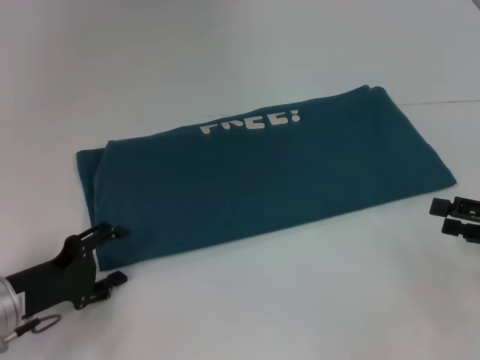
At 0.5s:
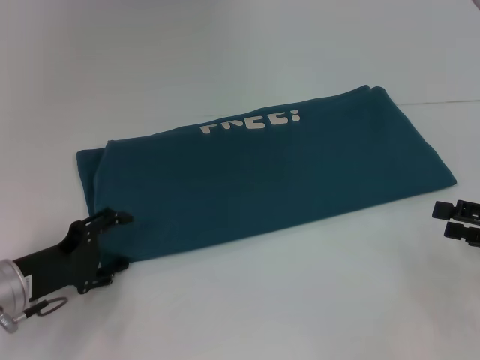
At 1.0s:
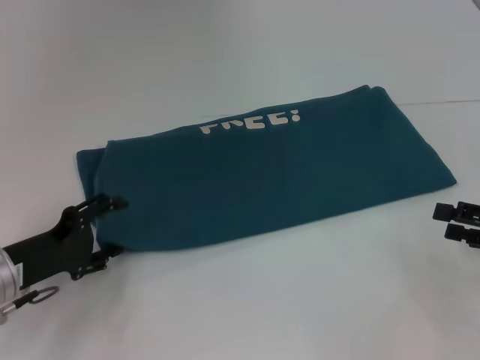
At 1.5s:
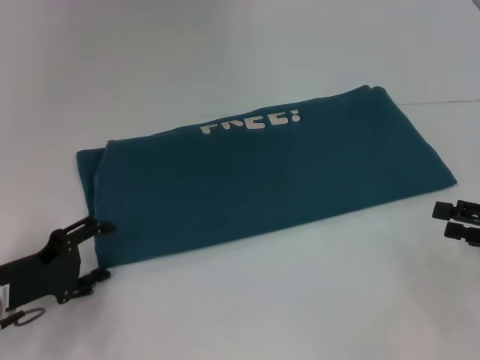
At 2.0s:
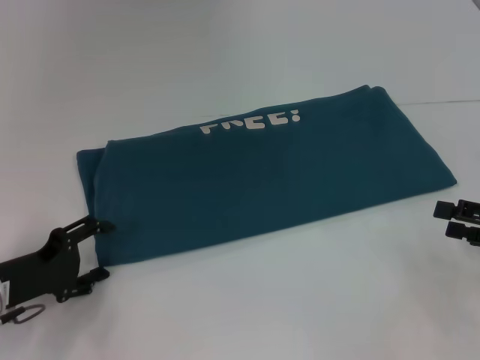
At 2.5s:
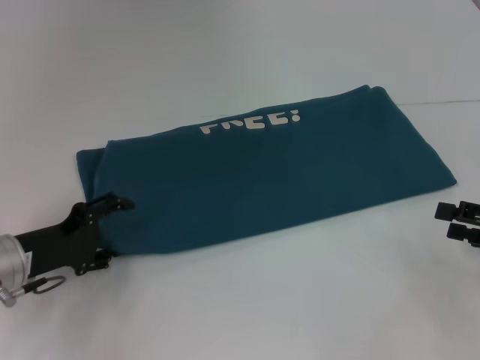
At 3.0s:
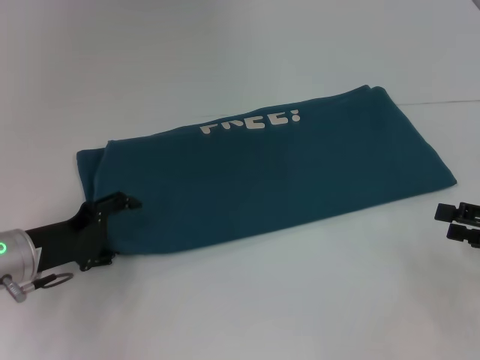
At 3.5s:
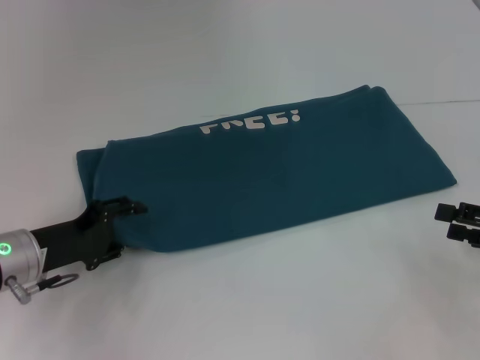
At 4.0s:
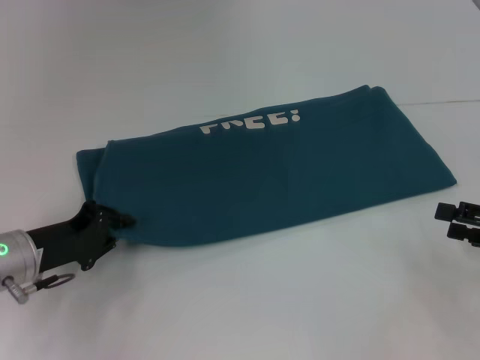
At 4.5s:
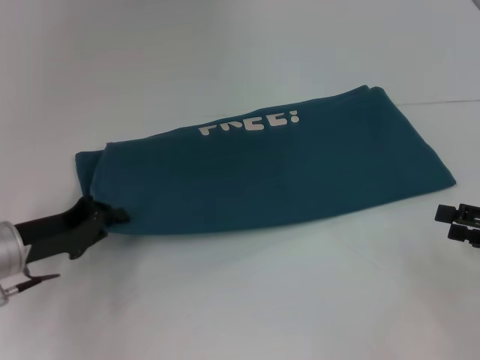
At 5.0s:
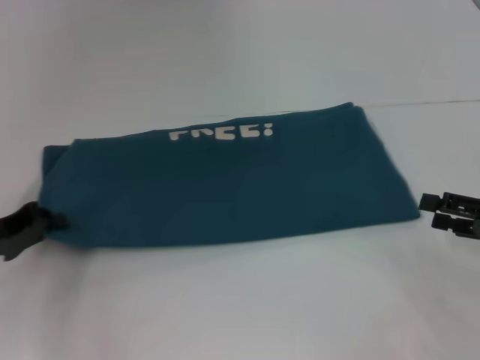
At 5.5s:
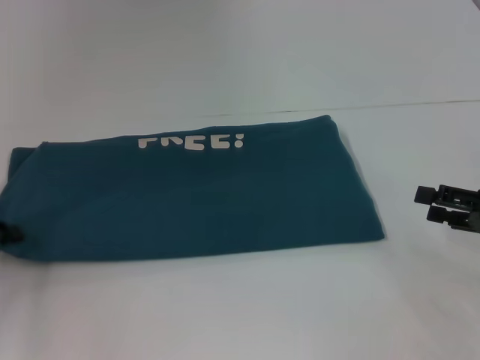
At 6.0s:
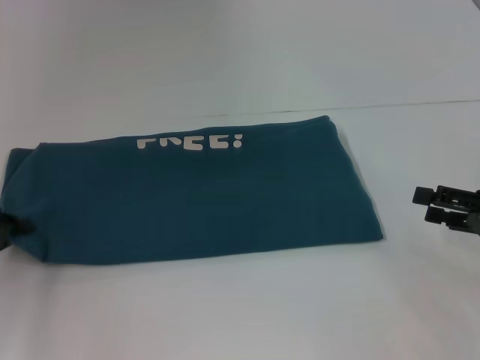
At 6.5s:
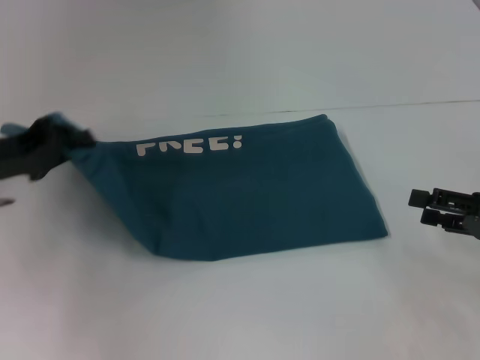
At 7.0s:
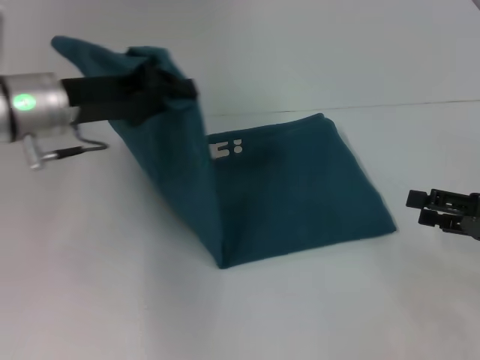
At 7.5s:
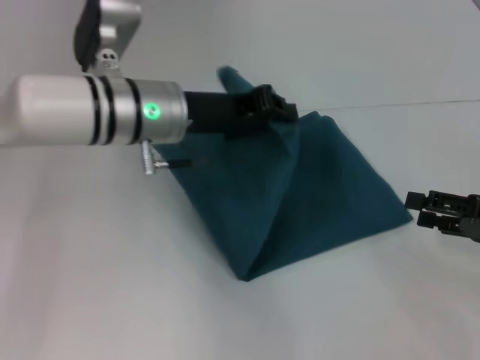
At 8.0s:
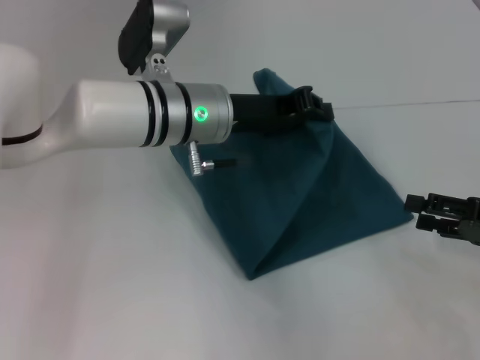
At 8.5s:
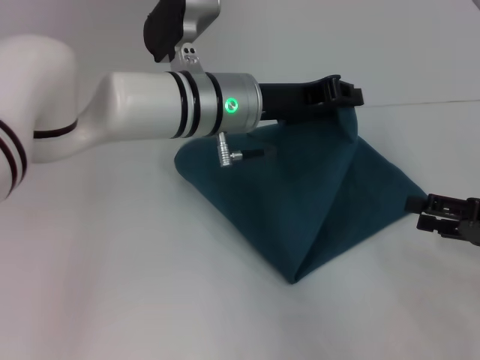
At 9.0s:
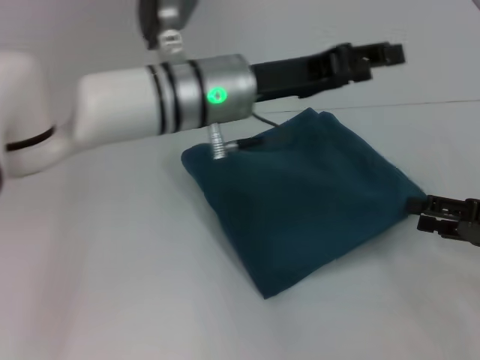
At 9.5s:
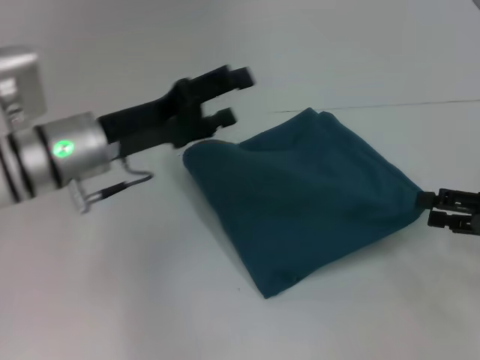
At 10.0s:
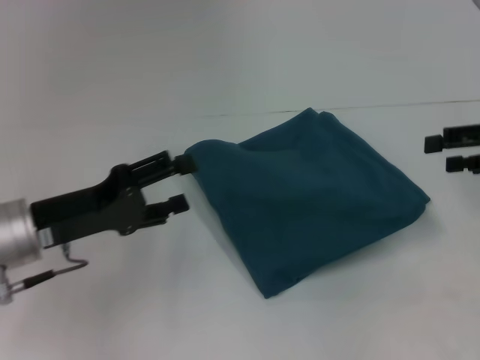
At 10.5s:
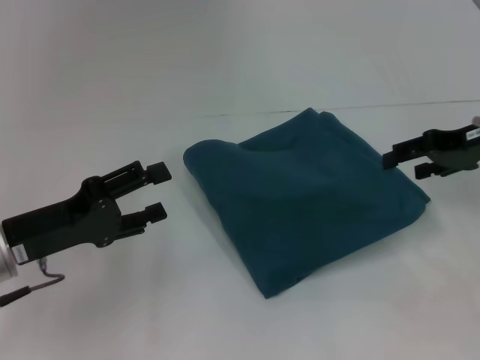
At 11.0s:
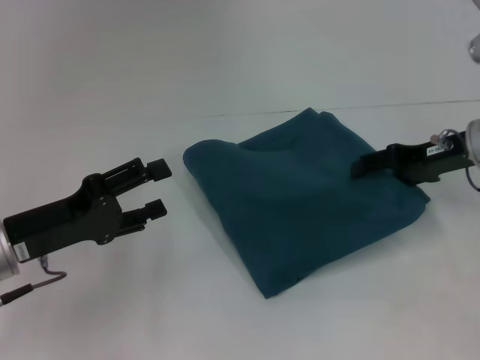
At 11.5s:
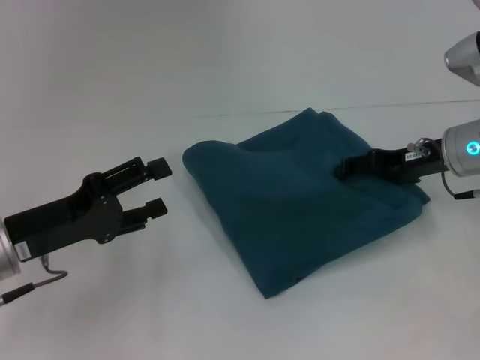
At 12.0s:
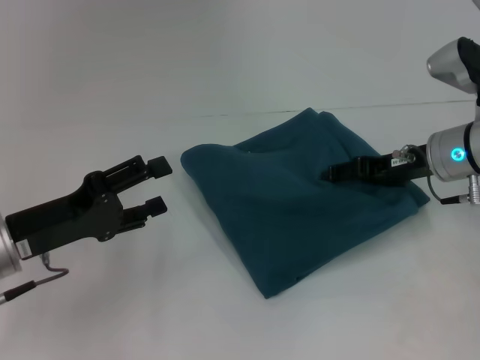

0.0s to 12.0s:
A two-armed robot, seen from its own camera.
Step, 0.0s to 8.5s: Fold the clothes to the left.
0.0s to 2.0s: The grippers stay close to where they were, moving slightly.
2.0s to 4.0s: The left gripper closes its fingers.
4.0s to 6.0s: The left gripper is displaced to the left by about 10 cm.
6.0s to 8.0s: The left gripper moves to the right, approximately 30 cm.
8.0s to 10.0s: The right gripper moves upward and forward, roughly 10 cm. The left gripper goes roughly 20 cm to the left and backward, and opens up.
10.0s to 12.0s: The right gripper heads to the left and downward, covering some 15 cm.

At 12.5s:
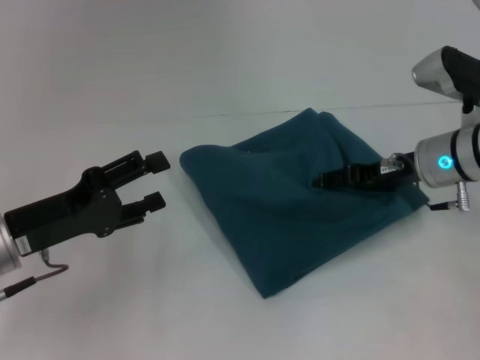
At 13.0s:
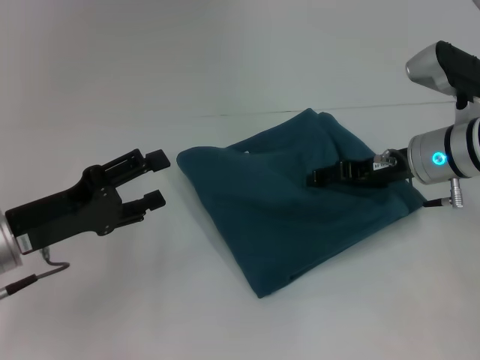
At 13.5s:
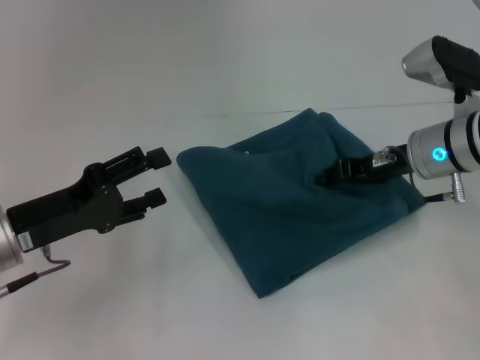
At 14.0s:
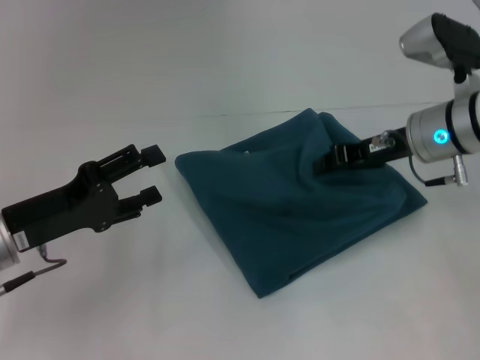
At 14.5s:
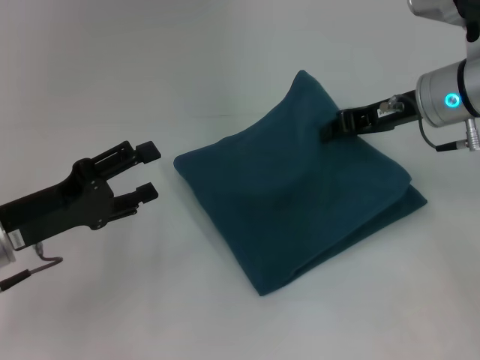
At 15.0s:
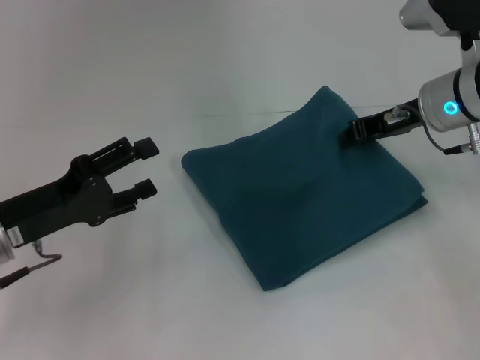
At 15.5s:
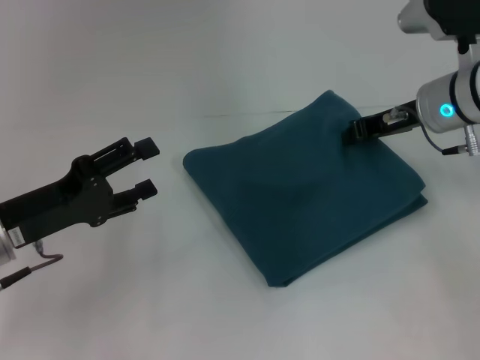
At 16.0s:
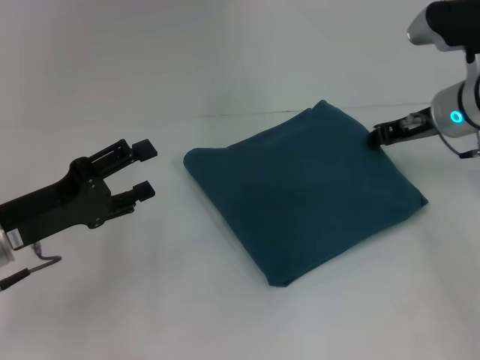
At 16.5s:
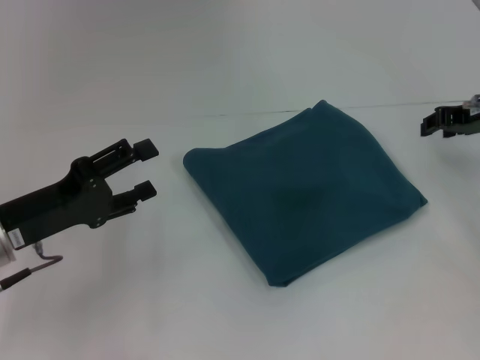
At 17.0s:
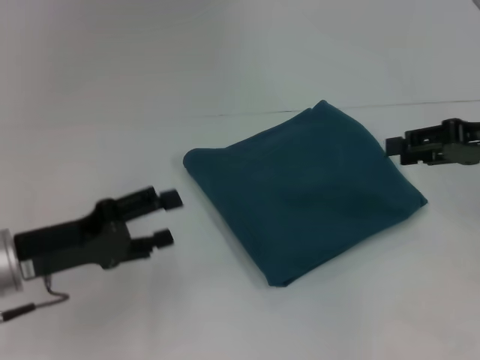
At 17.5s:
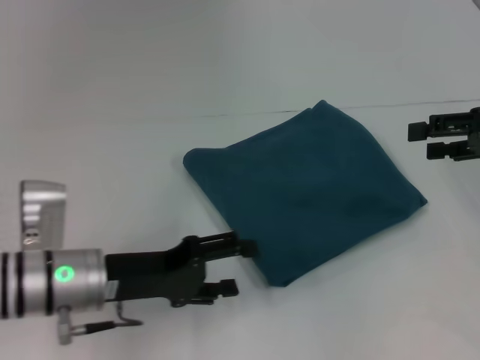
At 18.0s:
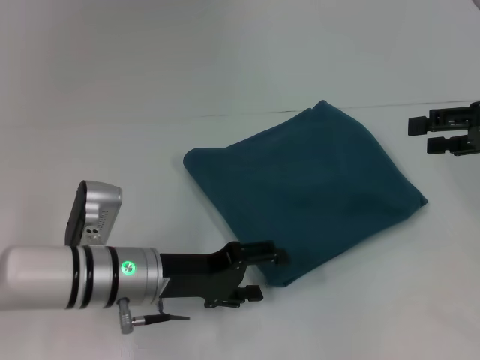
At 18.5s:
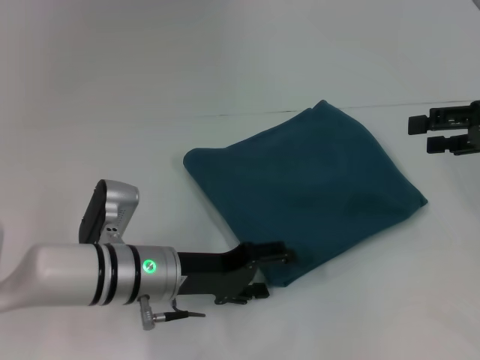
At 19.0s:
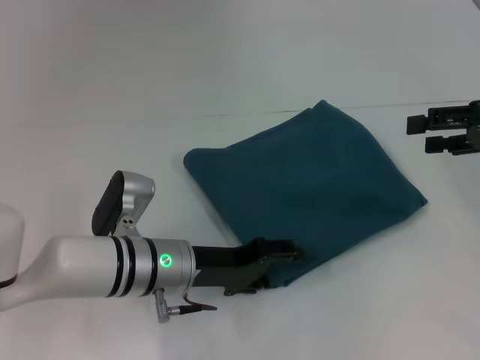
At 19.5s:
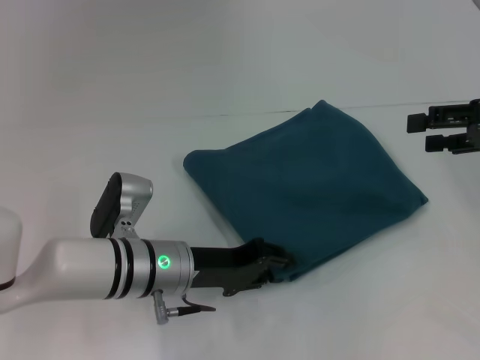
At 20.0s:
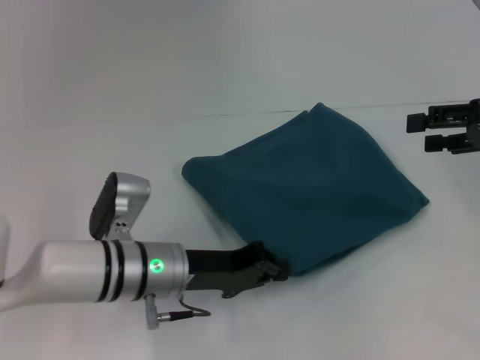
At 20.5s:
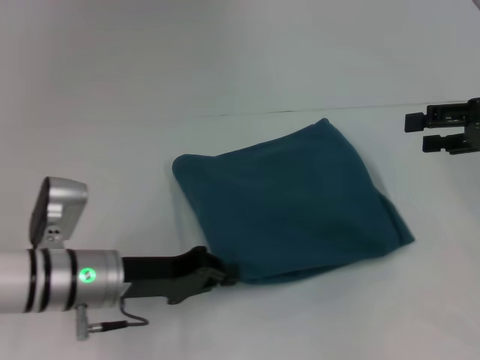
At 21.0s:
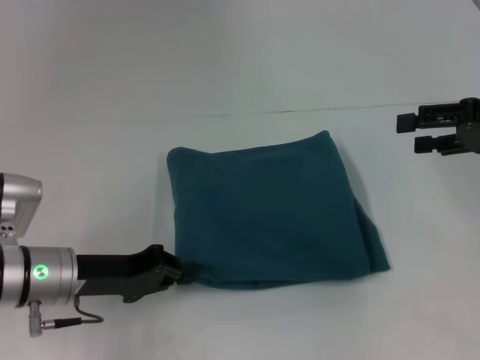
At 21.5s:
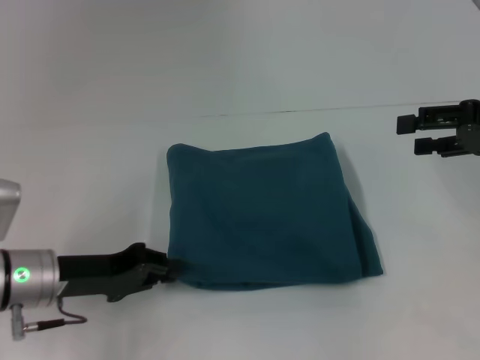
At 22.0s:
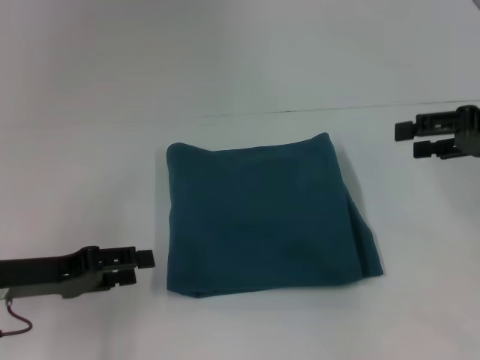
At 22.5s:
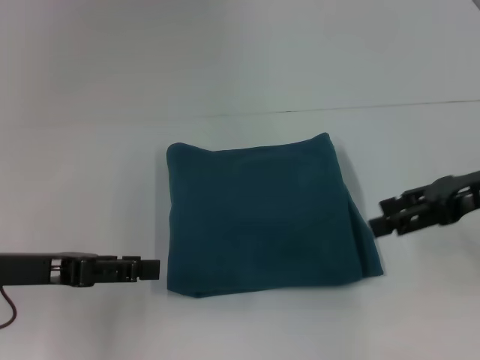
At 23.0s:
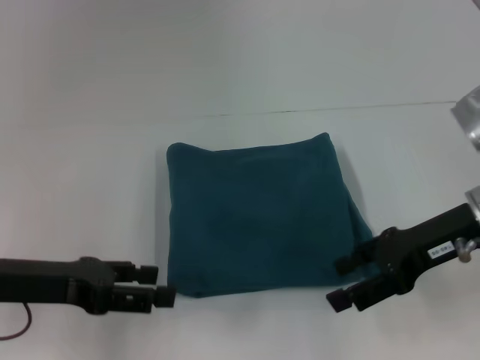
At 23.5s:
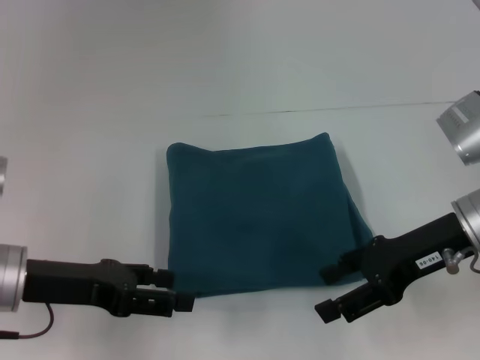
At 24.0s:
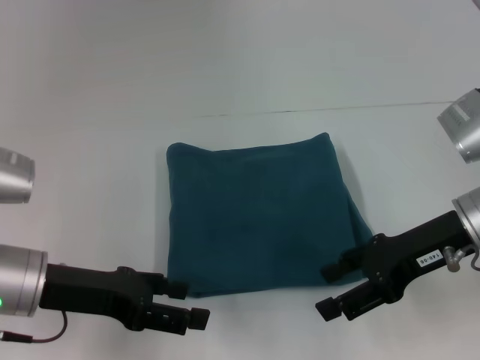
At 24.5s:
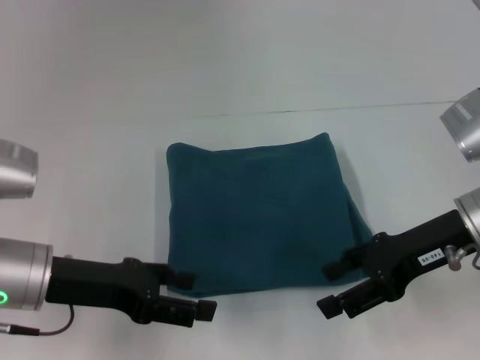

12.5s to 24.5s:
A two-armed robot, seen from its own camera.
12.5s to 14.5s: The right gripper heads upward, covering approximately 5 cm, and closes.
14.5s to 16.5s: The right gripper shifts some 10 cm to the right, and opens its fingers.
16.5s to 18.5s: The left gripper goes approximately 15 cm to the right and downward, while the right gripper travels backward by some 5 cm, and opens its fingers.
18.5s to 20.5s: The left gripper travels to the left by about 5 cm, and closes up.
20.5s to 22.5s: The left gripper moves to the left and upward, about 10 cm, and opens its fingers; the right gripper moves about 5 cm.
22.5s to 24.5s: The left gripper travels to the right by roughly 5 cm; the right gripper travels to the left by some 5 cm.

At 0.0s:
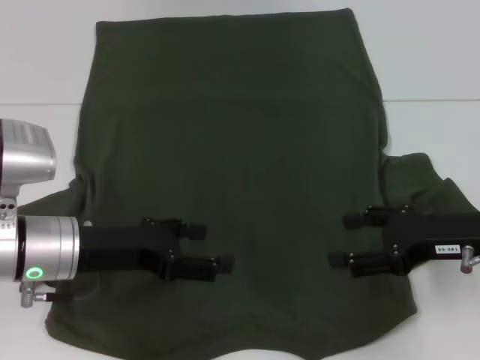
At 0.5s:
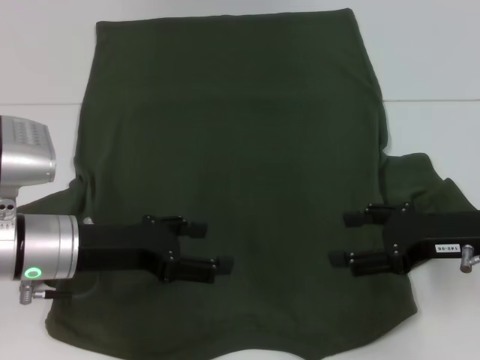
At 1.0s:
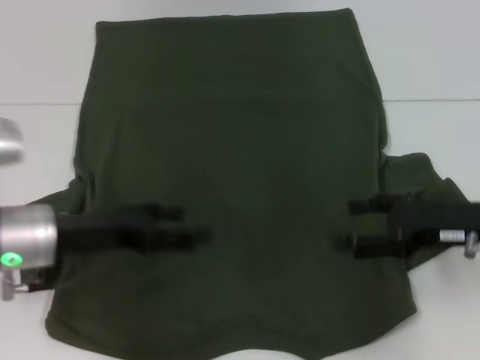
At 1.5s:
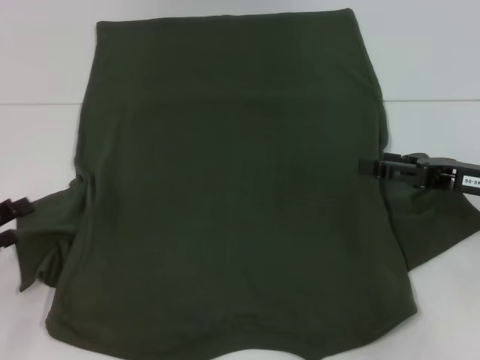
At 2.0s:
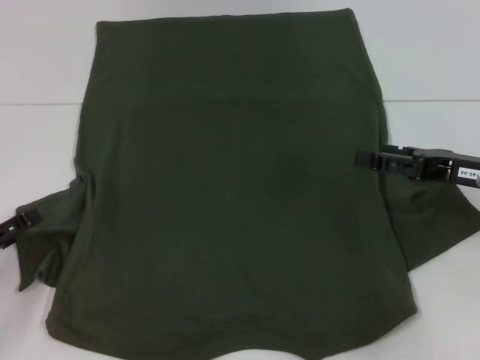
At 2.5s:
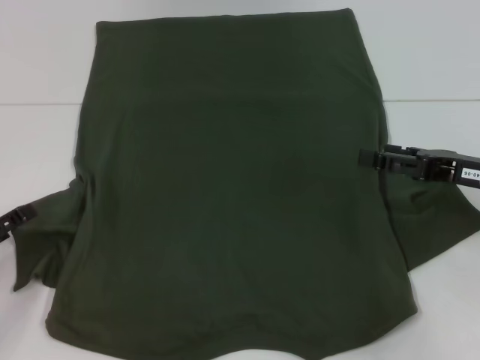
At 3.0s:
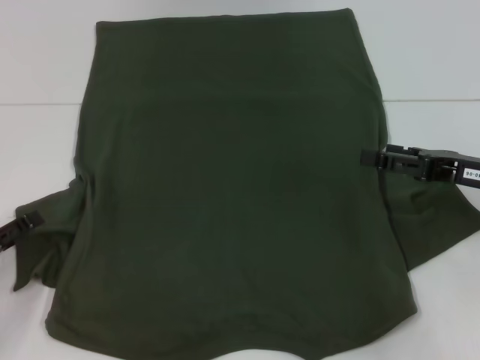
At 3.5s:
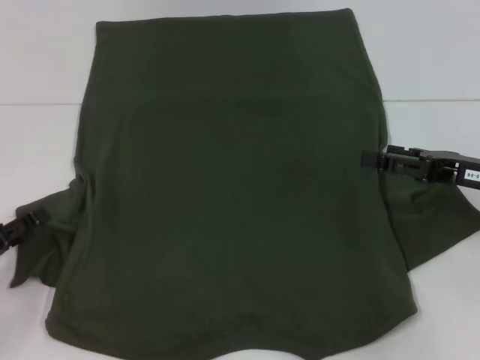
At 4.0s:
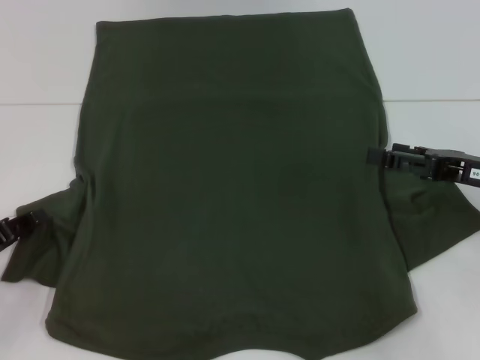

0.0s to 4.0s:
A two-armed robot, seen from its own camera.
0.0s to 2.0s: The left gripper moves to the left and downward, about 15 cm.
2.0s to 4.0s: There are only small adjustments of the grippers.
